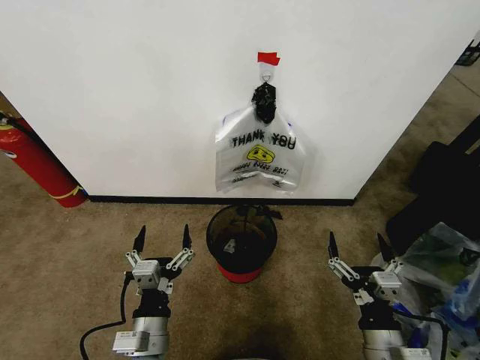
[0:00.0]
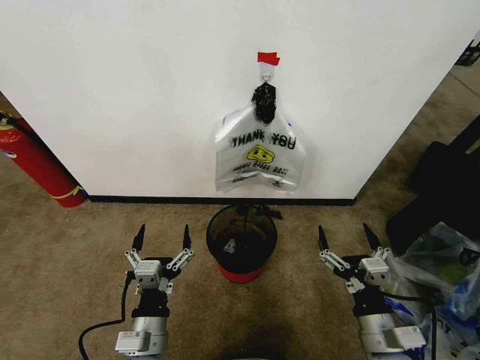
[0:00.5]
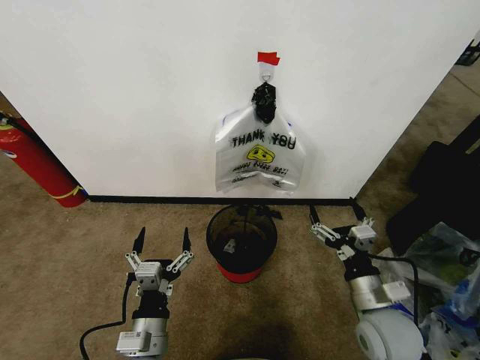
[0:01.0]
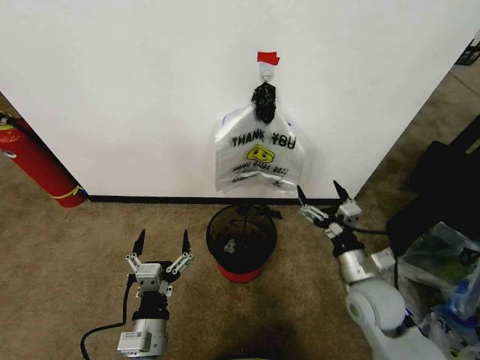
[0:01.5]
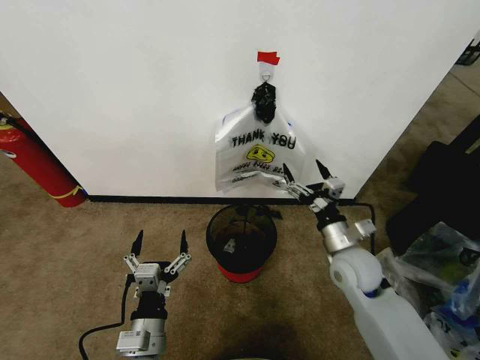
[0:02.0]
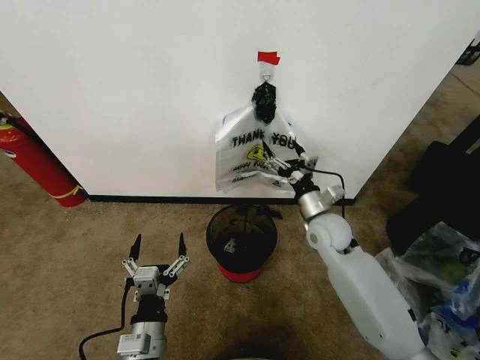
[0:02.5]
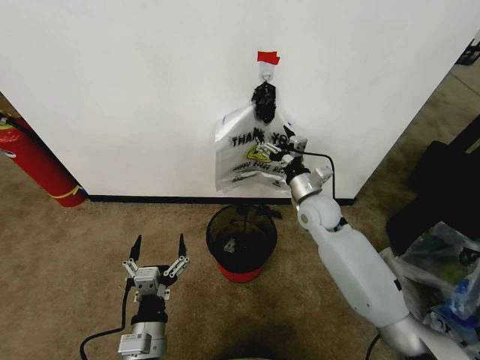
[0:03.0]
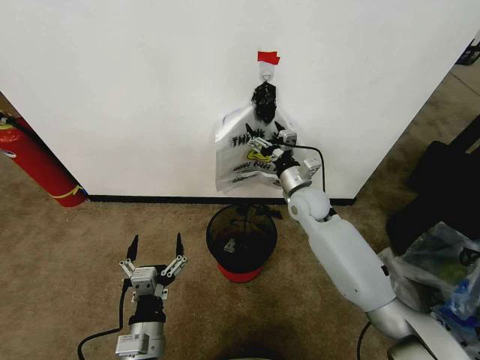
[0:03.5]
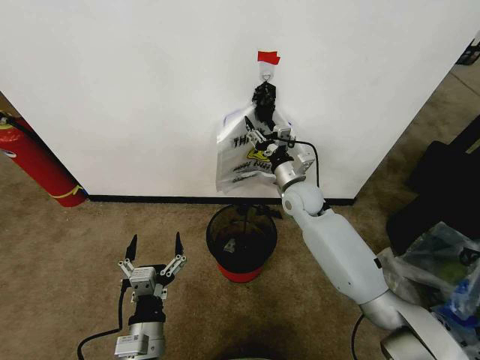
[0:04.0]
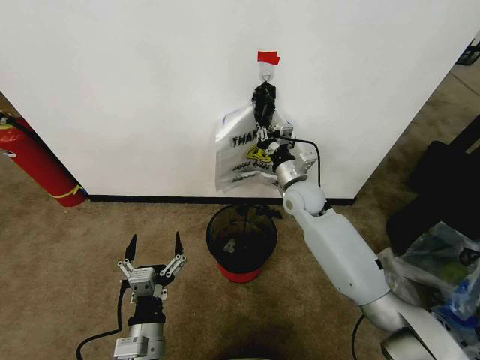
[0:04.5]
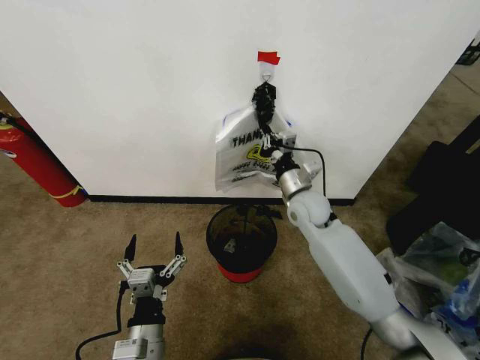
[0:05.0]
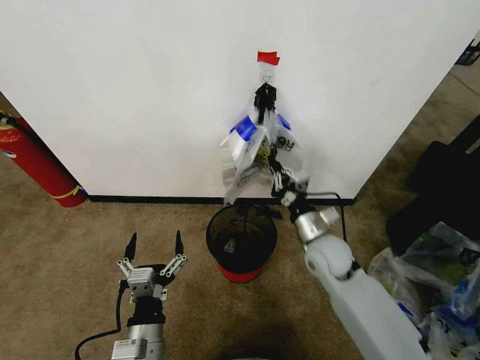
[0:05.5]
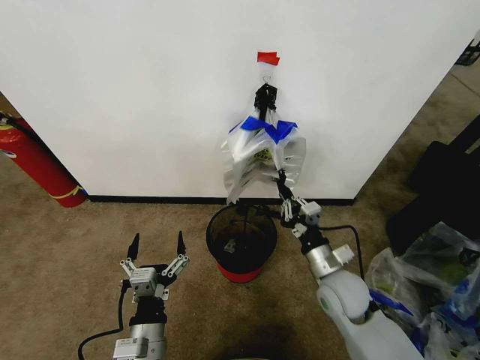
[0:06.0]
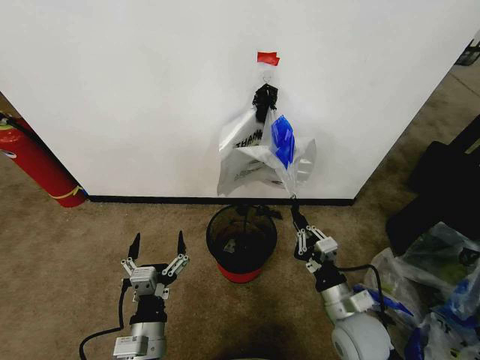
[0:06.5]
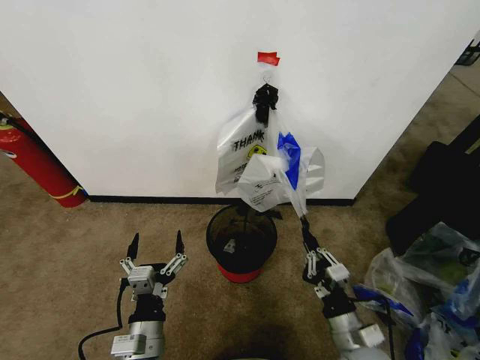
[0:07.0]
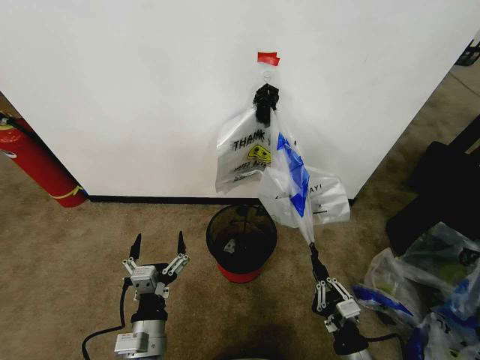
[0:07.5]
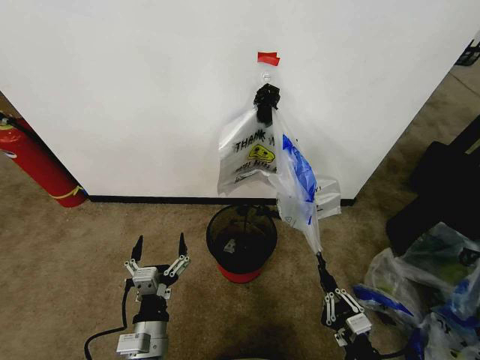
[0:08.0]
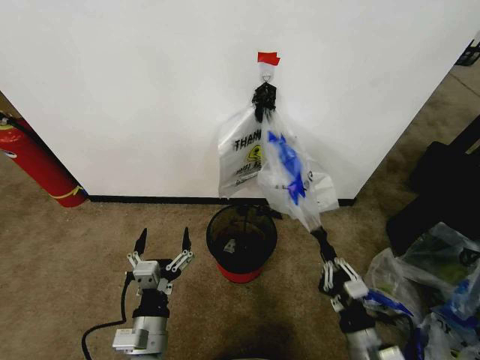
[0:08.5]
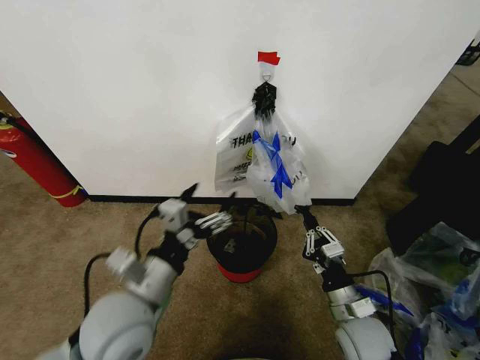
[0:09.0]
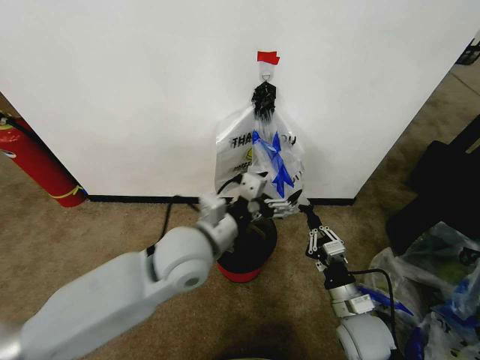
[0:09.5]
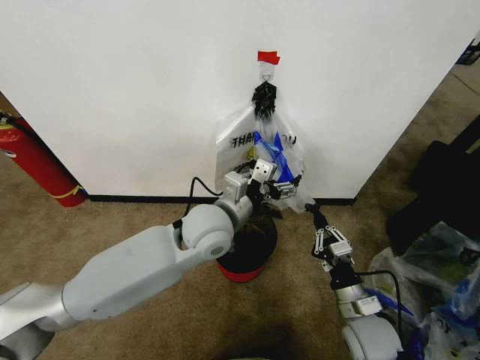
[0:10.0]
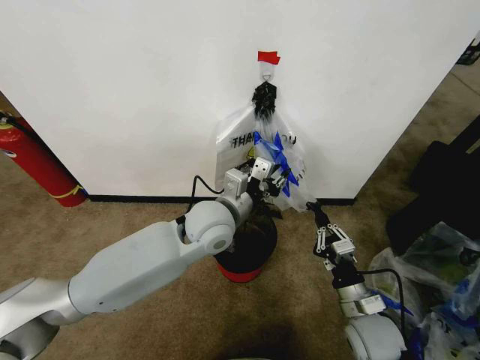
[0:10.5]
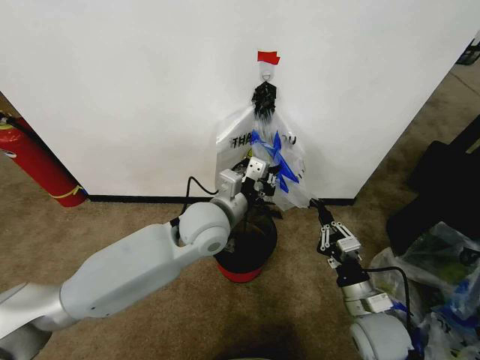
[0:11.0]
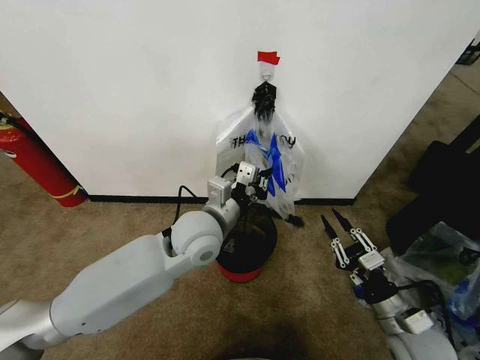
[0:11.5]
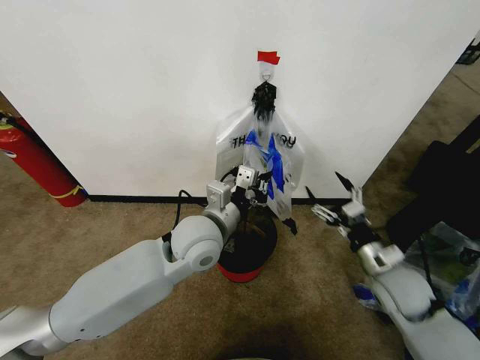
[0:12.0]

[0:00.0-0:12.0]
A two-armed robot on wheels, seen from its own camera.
Task of the whole recording: Pick up the garbage bag from the wall and place it over the trash bin.
0:02.0 to 0:04.0: The right gripper is displaced forward and to the left by about 20 cm, and closes its fingers.
0:04.0 to 0:06.0: The right gripper shifts some 20 cm backward and downward, and closes.
0:06.0 to 0:08.0: The right gripper goes roughly 20 cm backward and downward.
0:08.0 to 0:10.0: The right gripper goes some 15 cm forward. The left gripper moves forward, upward and to the right, approximately 30 cm.
0:10.0 to 0:12.0: The left gripper closes; the right gripper shifts roughly 10 cm upward, to the right and forward, and opens up.

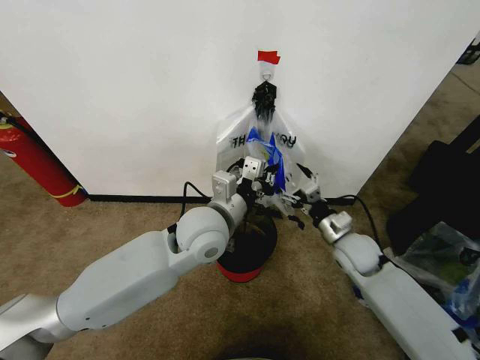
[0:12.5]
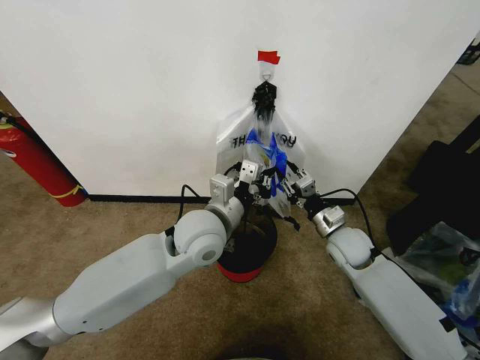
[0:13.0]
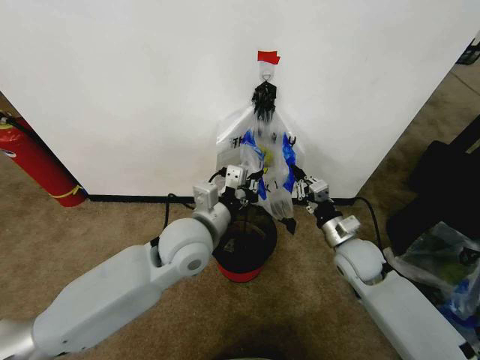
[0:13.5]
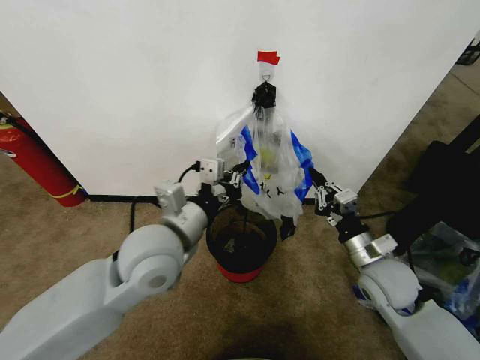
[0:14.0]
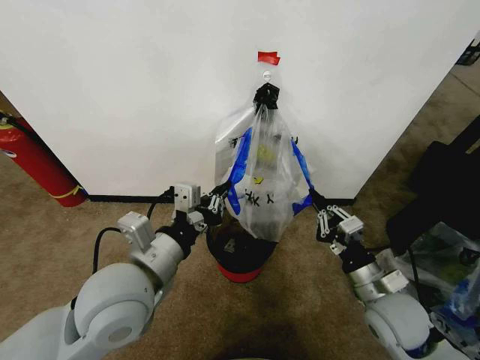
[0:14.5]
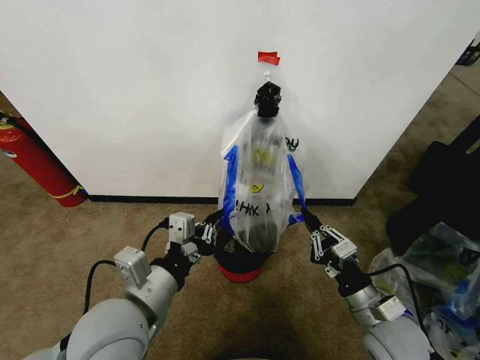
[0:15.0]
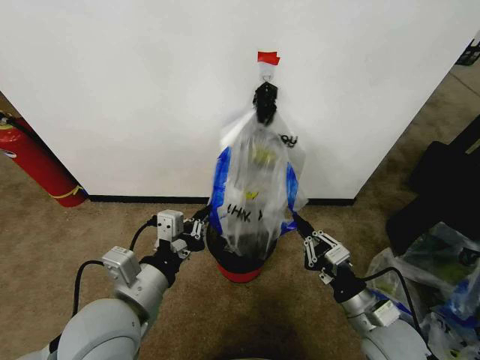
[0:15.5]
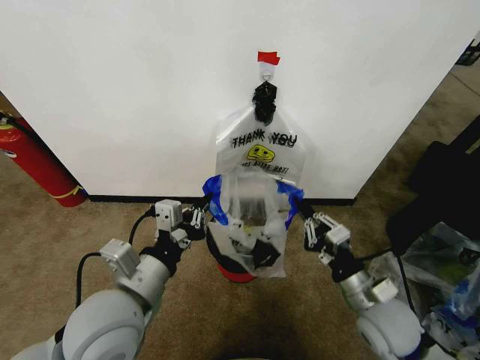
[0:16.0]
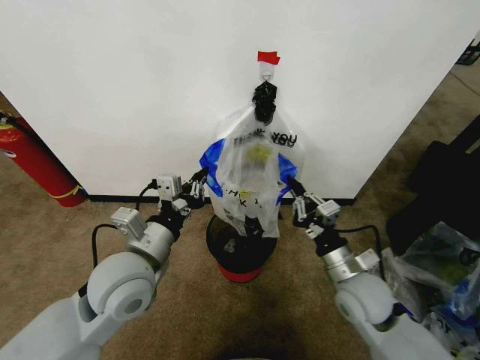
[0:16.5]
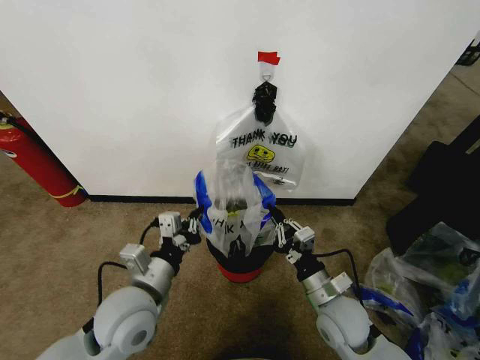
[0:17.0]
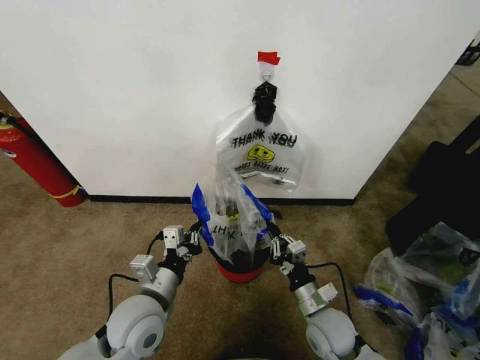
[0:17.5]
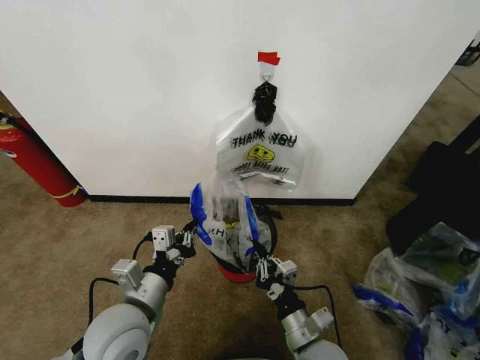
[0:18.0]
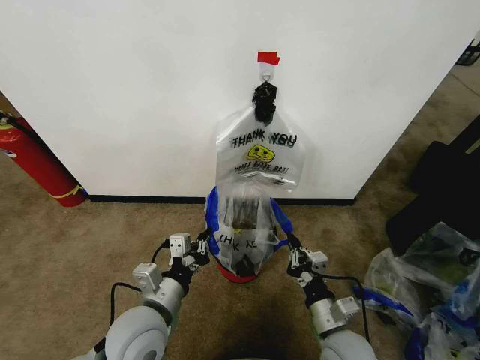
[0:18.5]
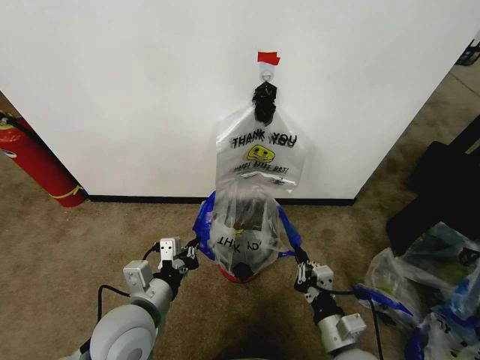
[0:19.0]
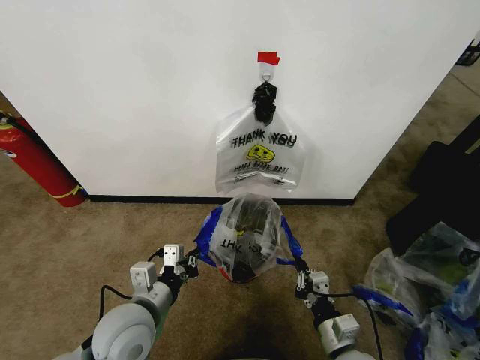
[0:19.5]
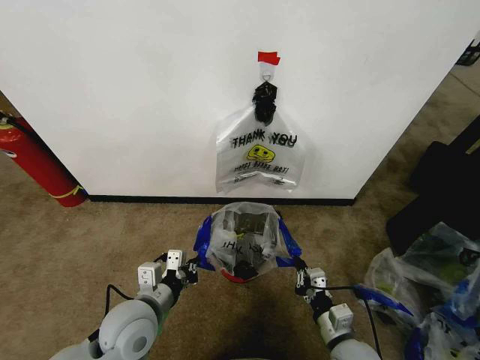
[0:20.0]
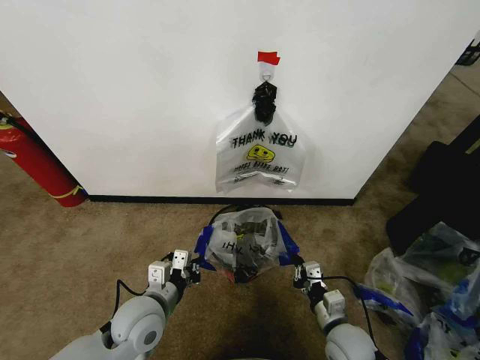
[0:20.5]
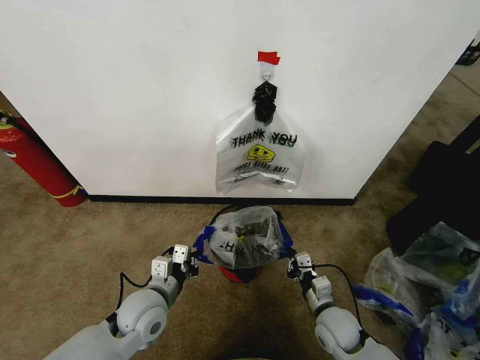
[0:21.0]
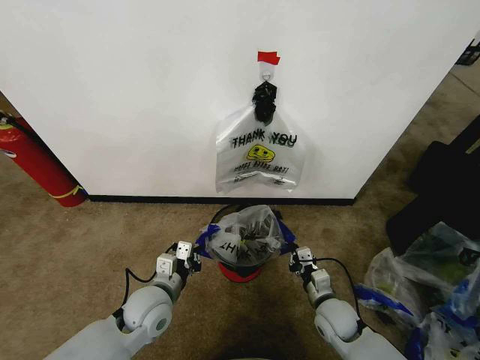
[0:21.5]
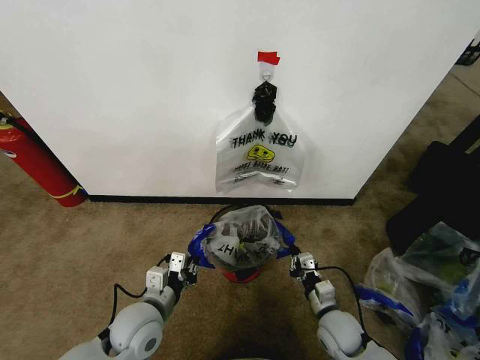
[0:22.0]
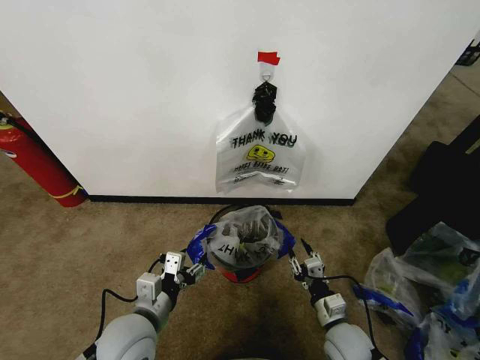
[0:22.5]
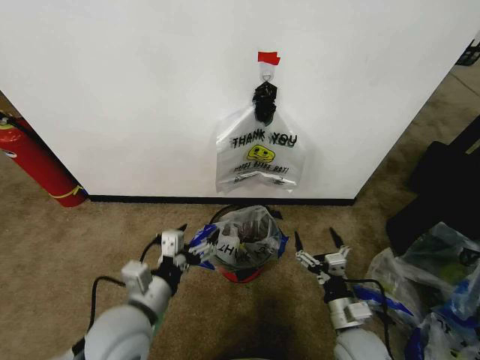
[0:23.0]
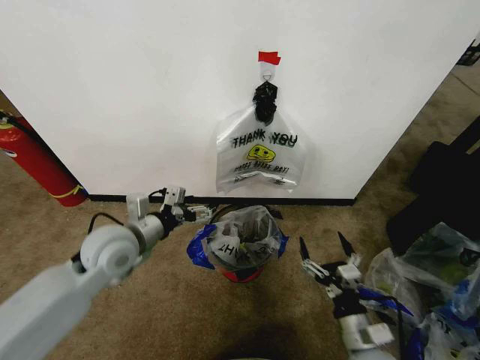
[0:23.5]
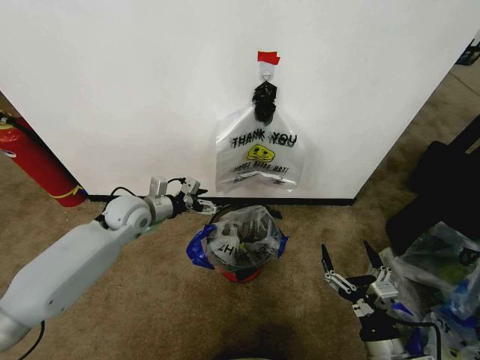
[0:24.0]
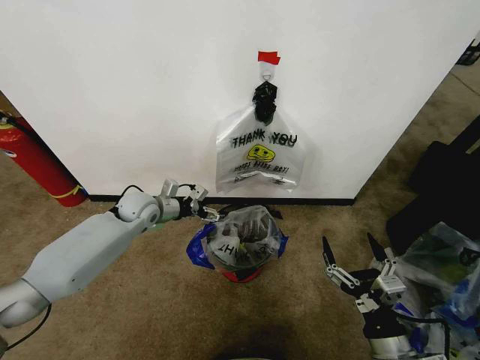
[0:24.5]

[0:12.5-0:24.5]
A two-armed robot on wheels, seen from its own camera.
Task of the whole recording: Pick up the garbage bag from the wall and place it over the trash bin.
0:12.5 to 0:14.5: The right gripper travels backward by approximately 15 cm, and closes up, while the left gripper shifts about 15 cm backward and to the left.
0:14.5 to 0:16.5: The right gripper changes place by about 5 cm. The left gripper changes place by about 5 cm.
0:16.5 to 0:18.5: The right gripper heads backward and downward, covering roughly 10 cm. The left gripper goes roughly 10 cm downward and backward.
0:18.5 to 0:20.5: The right gripper shifts about 5 cm downward, while the left gripper shifts by approximately 5 cm.
0:20.5 to 0:22.5: The left gripper opens its fingers, while the right gripper opens up.
0:22.5 to 0:24.5: The right gripper goes approximately 15 cm upward and backward, and opens its fingers. The left gripper goes roughly 30 cm forward.

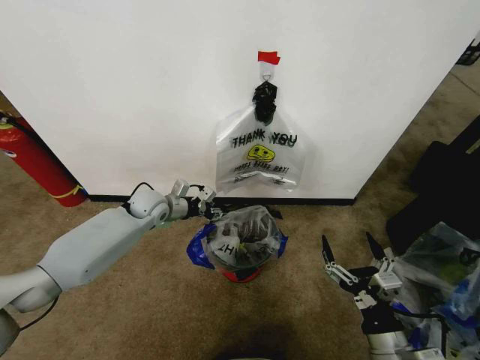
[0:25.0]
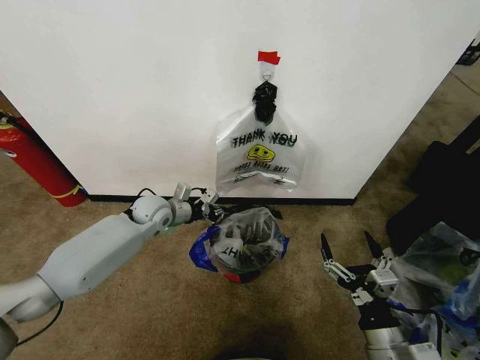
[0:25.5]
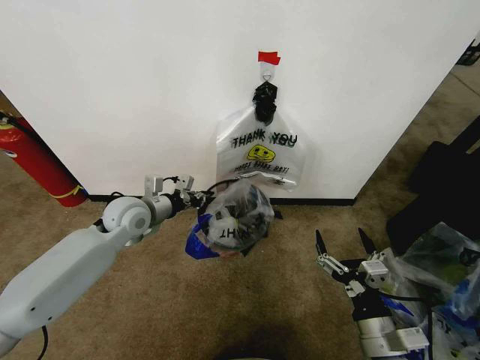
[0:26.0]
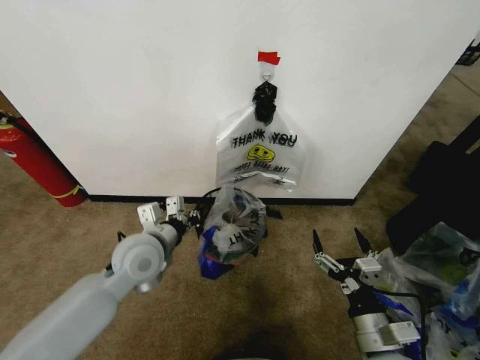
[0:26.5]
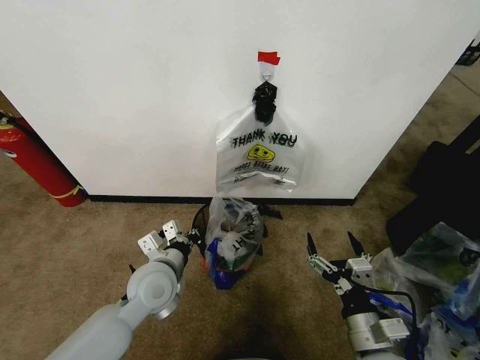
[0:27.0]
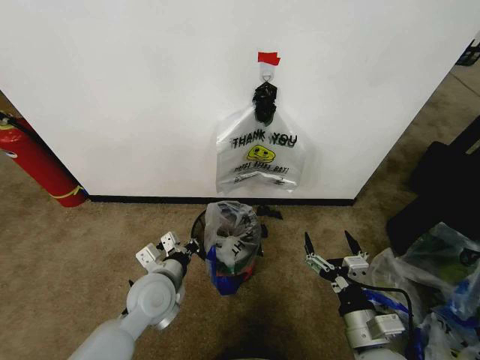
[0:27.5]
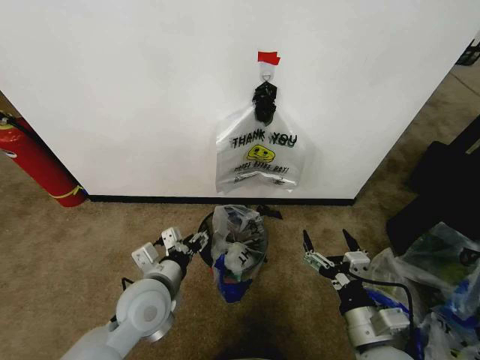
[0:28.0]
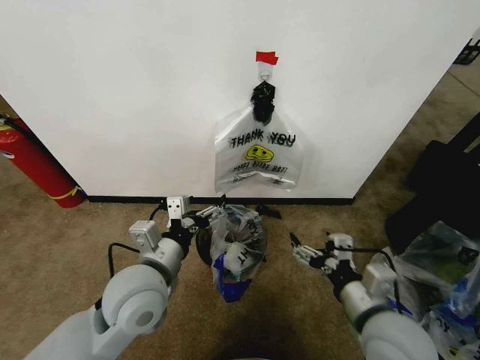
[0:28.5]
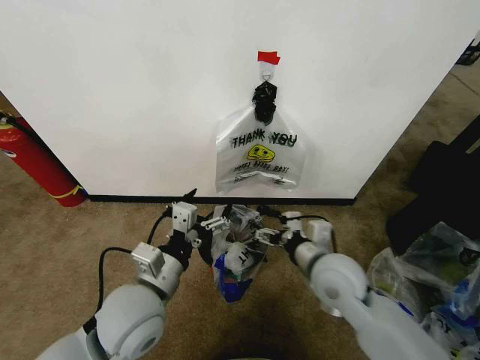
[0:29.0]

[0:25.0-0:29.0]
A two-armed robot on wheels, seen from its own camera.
Task of the whole recording: Pick up the garbage bag from the wall and place it over the trash bin.
0:25.0 to 0:27.0: The left gripper shifts some 20 cm backward.
0:27.0 to 0:29.0: The right gripper moves forward, upward and to the left, about 20 cm. Meanwhile the left gripper shifts about 10 cm backward and upward, and opens.
